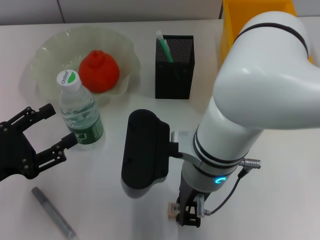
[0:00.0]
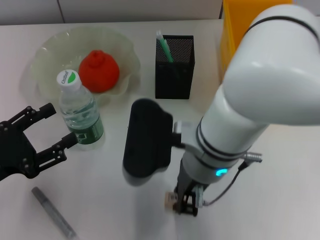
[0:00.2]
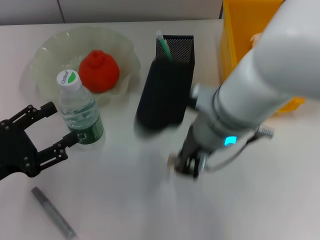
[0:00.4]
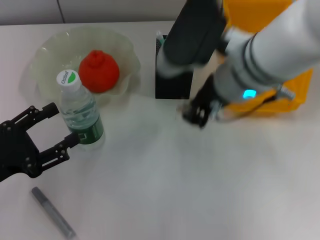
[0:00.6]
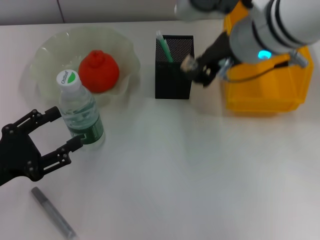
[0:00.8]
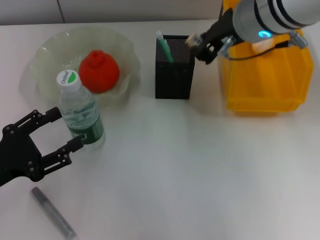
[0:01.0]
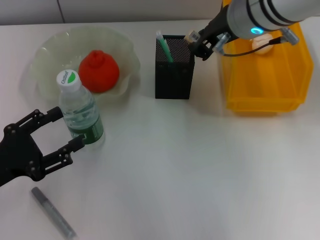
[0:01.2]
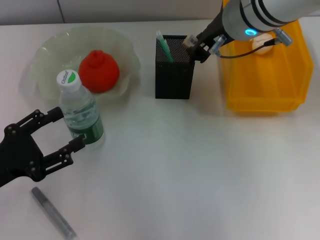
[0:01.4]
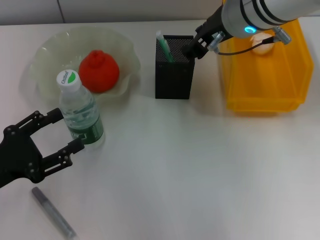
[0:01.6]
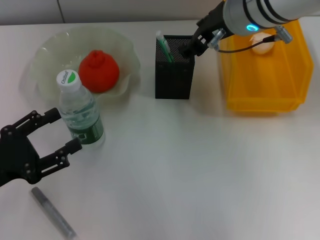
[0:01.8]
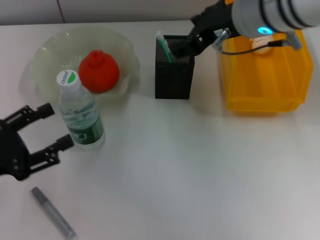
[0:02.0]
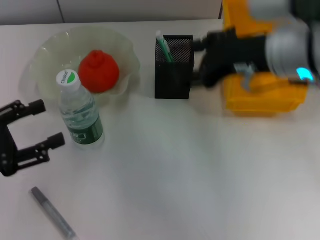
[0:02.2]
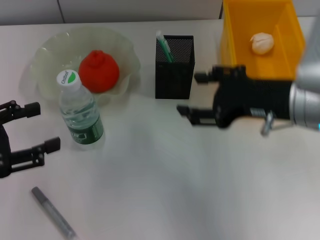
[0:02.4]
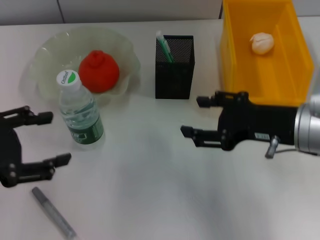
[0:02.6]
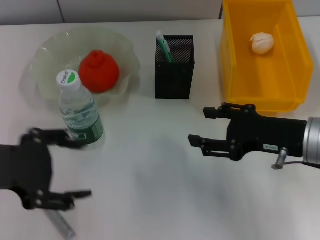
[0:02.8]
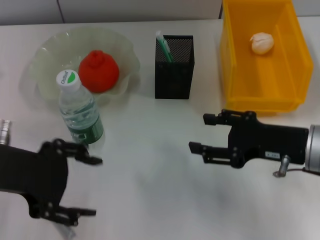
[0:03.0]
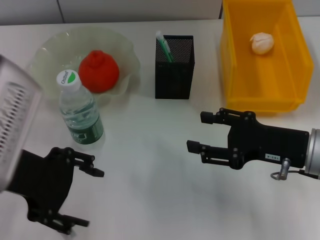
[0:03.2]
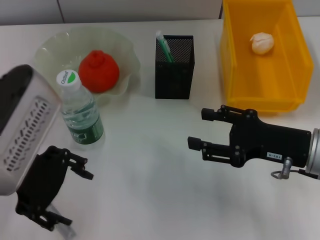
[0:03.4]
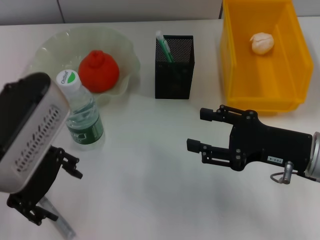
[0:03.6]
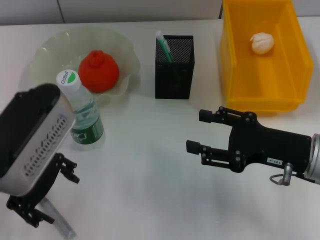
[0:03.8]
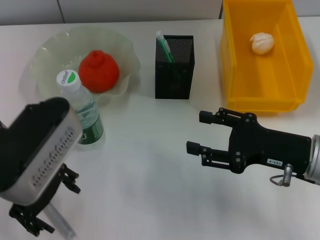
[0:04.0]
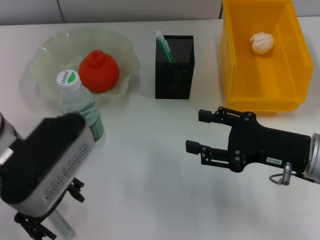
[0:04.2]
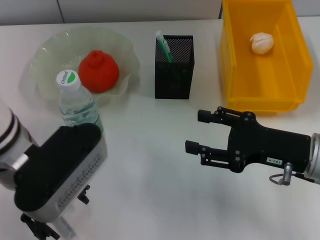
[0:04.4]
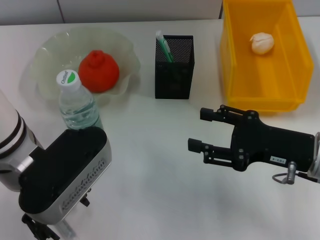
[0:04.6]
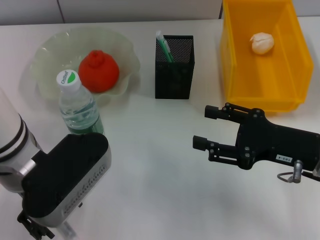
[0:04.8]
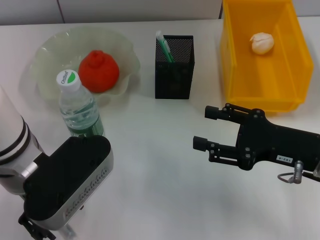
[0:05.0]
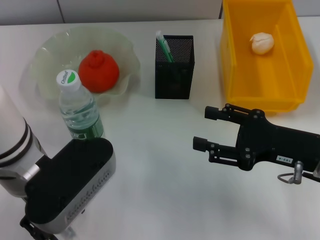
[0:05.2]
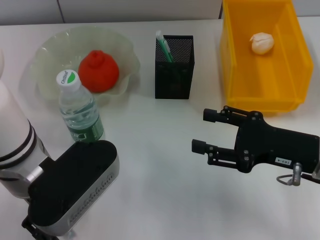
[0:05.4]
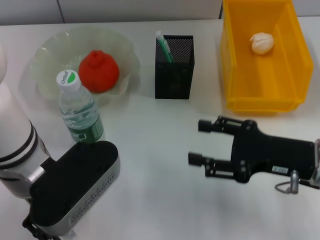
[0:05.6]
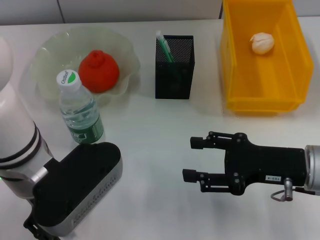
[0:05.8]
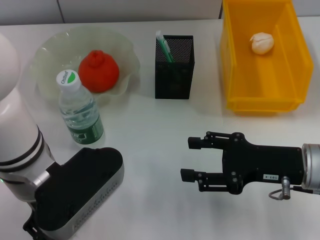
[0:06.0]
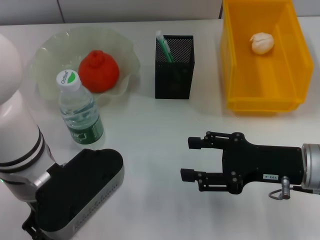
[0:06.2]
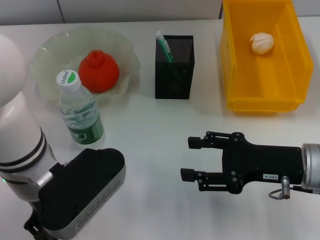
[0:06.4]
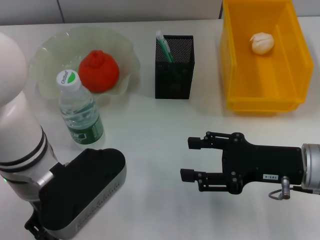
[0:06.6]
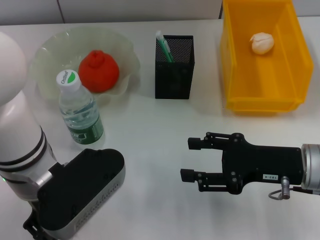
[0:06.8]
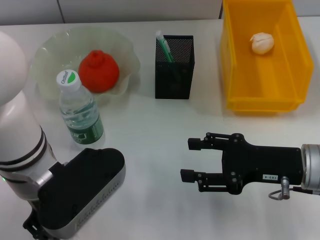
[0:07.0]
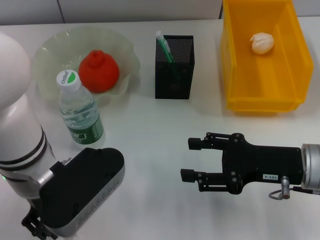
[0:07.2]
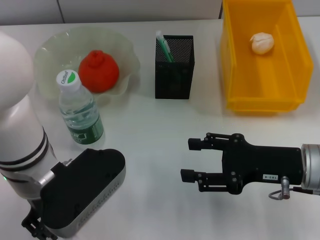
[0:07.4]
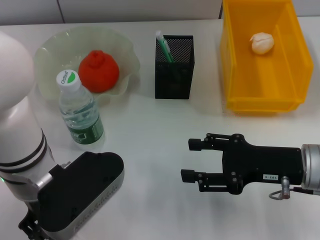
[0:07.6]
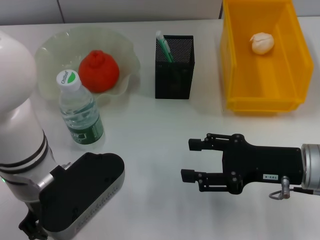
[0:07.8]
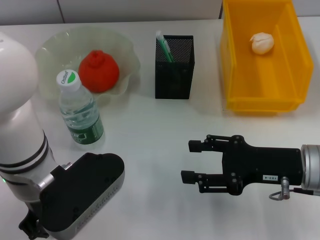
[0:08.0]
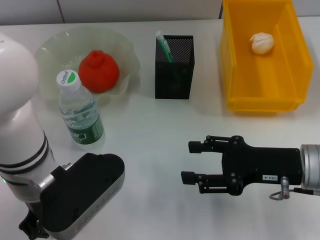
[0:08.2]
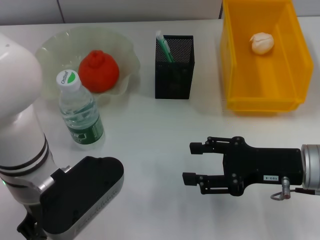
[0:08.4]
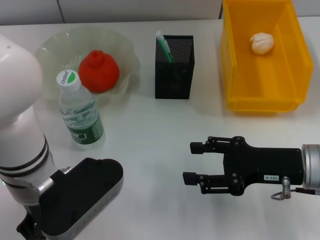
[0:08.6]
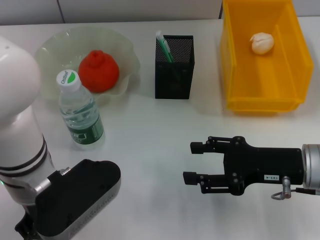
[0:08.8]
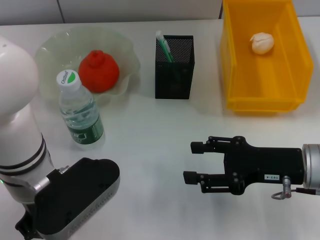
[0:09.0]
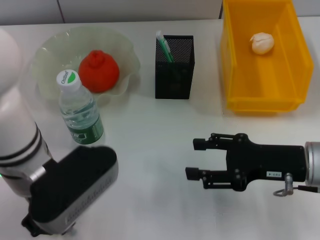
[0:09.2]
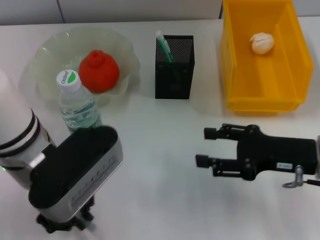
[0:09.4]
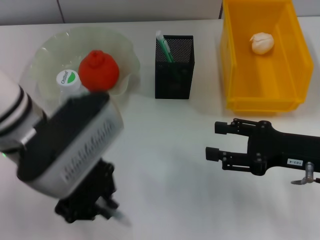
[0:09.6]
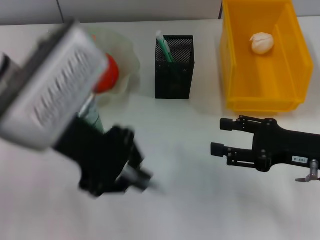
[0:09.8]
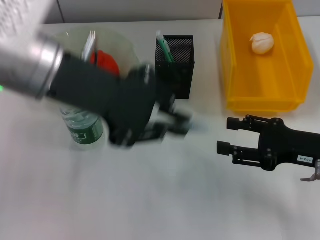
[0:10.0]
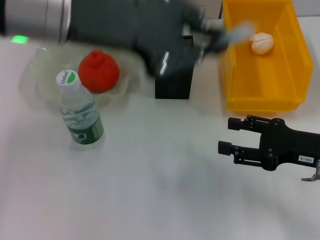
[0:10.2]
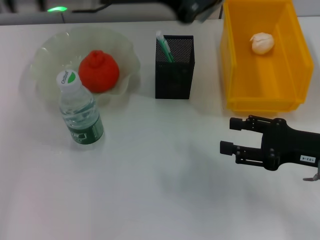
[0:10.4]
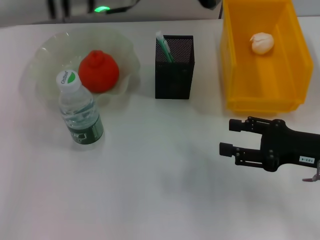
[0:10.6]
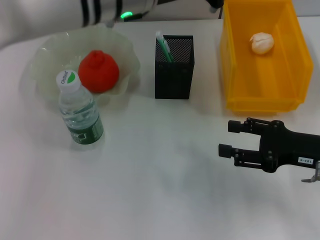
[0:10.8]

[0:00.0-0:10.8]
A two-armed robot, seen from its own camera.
Step, 0:00.0 to 0:01.4: Put the eraser into the pen holder with the right hand.
Step, 0:01.6 to 0:08.8: Grab the gray glue with the right hand.
0:00.0 to 0:01.6: The right gripper travels forward, upward and to the right by about 15 cm.
0:01.6 to 0:03.0: The left gripper goes some 15 cm upward and to the right. Meanwhile the right gripper goes approximately 20 cm backward, to the right and downward, and opens.
0:03.0 to 0:04.6: The left gripper goes roughly 5 cm to the right.
0:06.2 to 0:07.8: The two grippers keep their place.
0:07.8 to 0:09.2: The left gripper closes.
0:09.2 to 0:10.8: The left gripper is displaced forward, upward and to the right by roughly 15 cm.

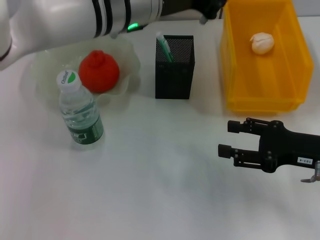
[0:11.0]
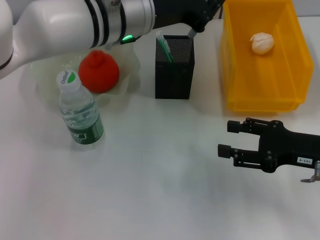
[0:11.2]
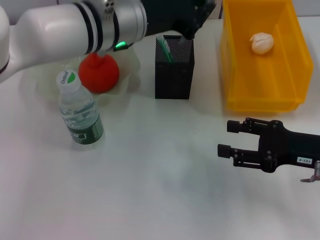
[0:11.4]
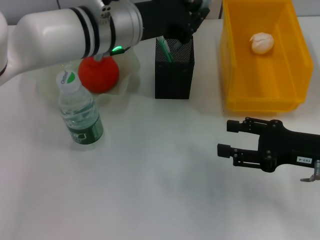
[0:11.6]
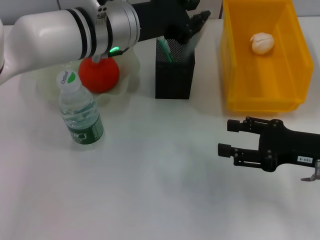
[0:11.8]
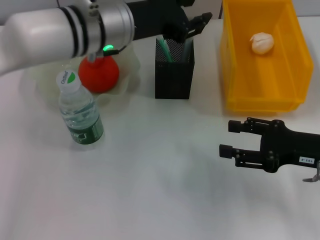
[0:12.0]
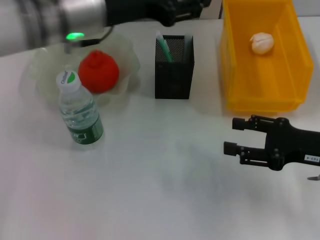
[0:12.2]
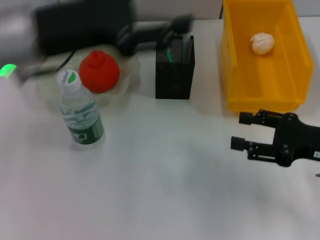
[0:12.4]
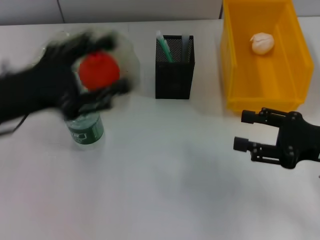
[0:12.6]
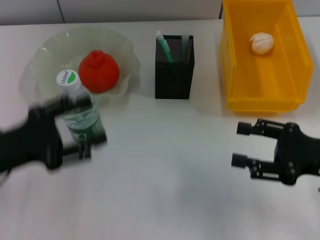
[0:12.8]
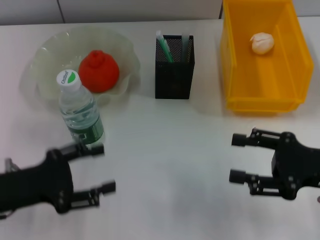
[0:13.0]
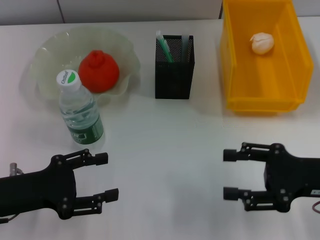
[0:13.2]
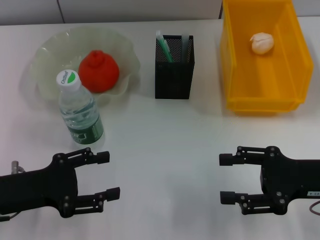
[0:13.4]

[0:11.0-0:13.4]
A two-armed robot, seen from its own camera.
0:11.0 to 0:12.2: The left gripper is displaced to the left by some 5 cm, and opens its fingers.
0:12.2 to 0:13.4: The left gripper heads backward, downward and to the left, covering some 25 cm, and opens its fingers.
